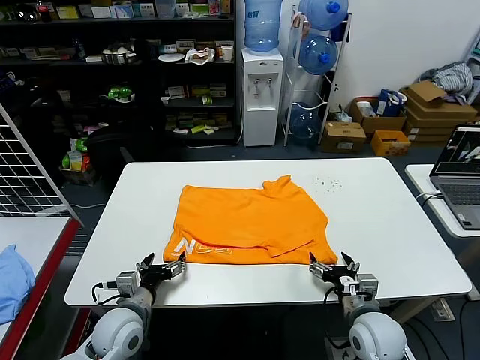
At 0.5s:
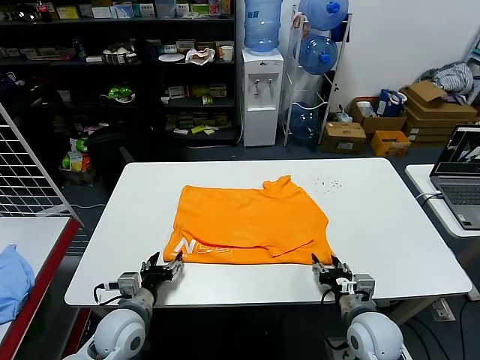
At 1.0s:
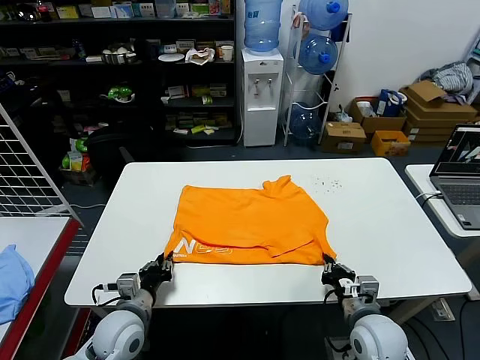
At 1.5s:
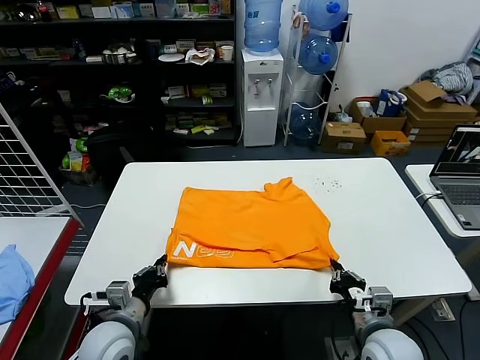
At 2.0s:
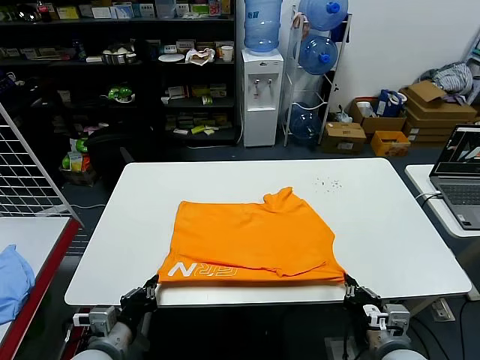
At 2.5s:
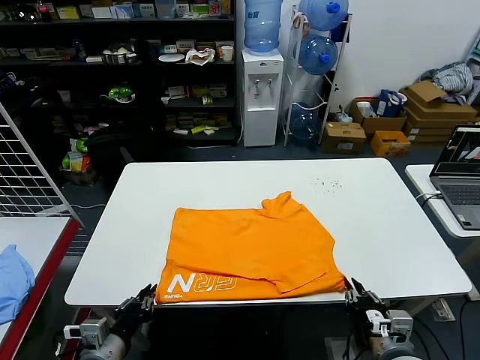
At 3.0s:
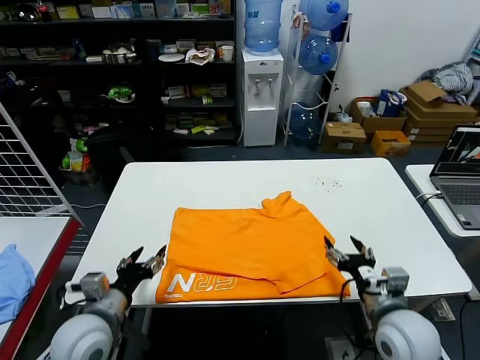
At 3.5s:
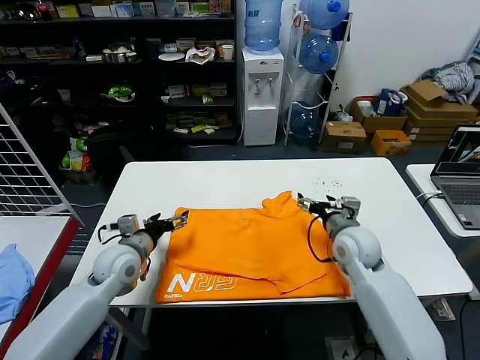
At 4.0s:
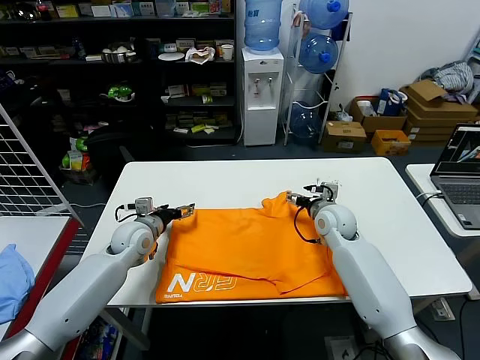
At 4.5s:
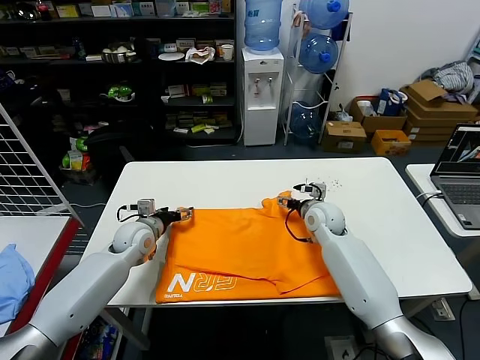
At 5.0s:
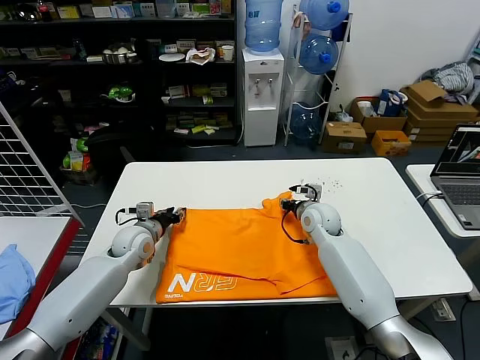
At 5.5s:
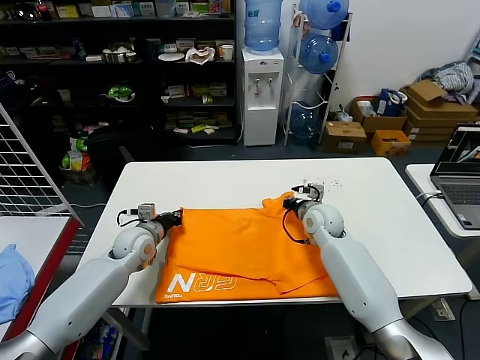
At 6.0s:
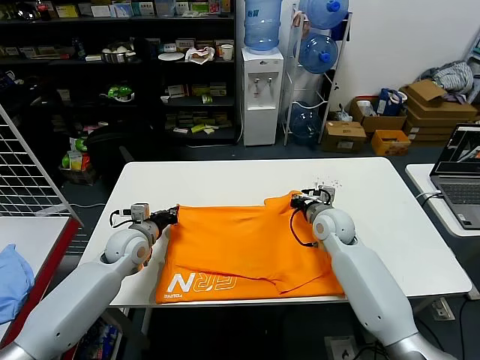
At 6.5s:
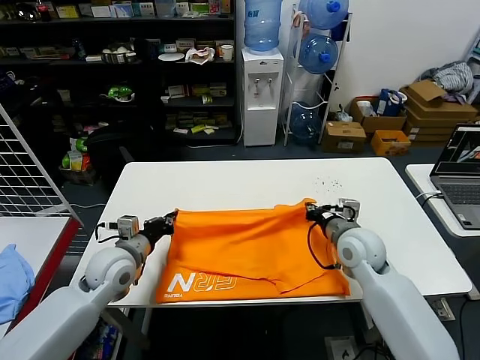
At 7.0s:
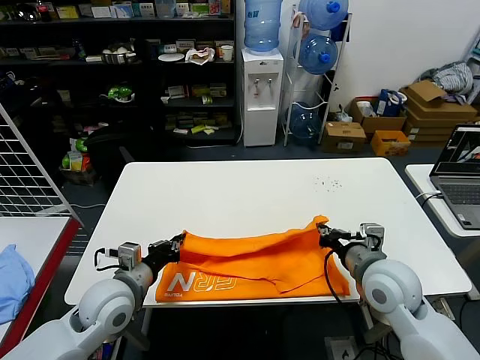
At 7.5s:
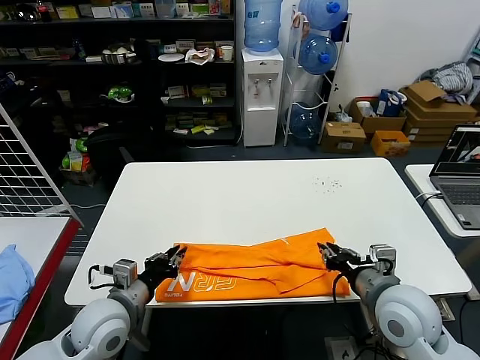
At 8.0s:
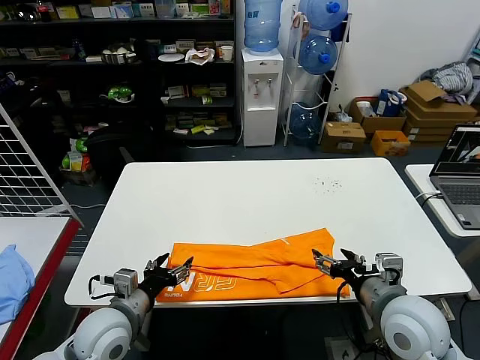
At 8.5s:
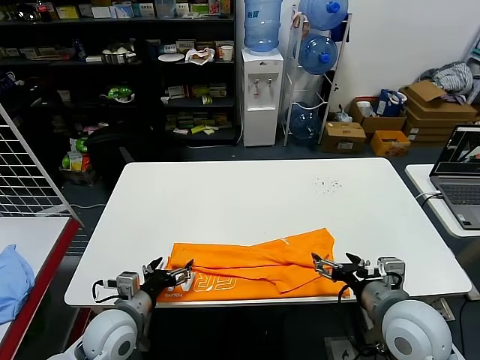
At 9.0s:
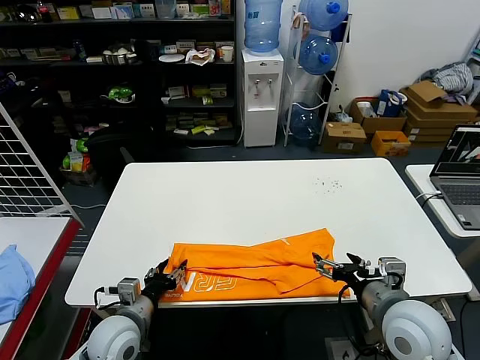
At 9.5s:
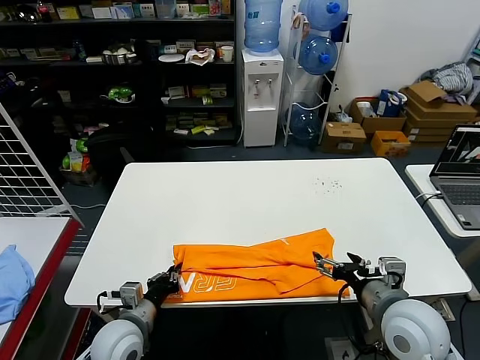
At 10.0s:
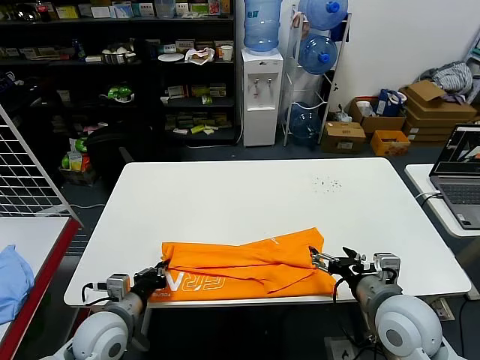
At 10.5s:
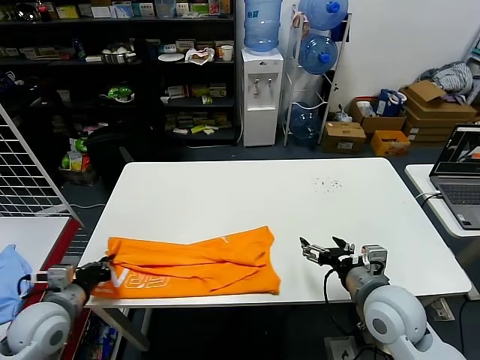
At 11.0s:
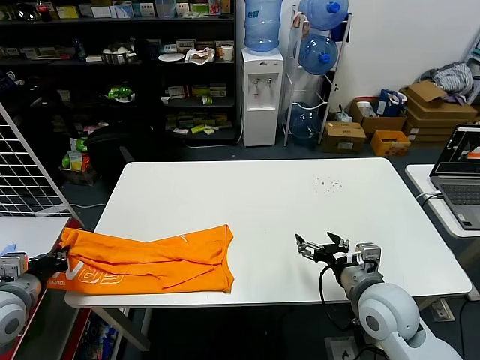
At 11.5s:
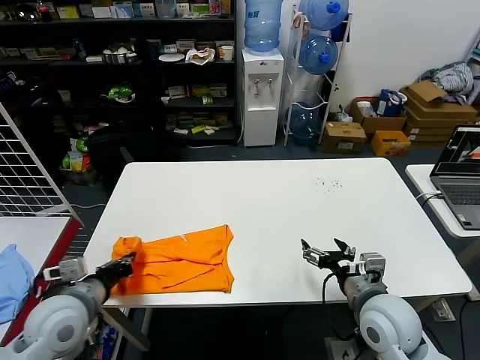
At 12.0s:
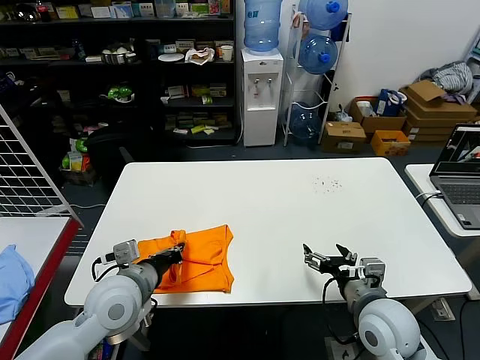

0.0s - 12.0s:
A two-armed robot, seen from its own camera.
Task of the whole recording: fold and organize the clothes.
Step, 0.0s - 2.5s: Drag the clothes downward with both gripper.
Step, 3.0s - 5.0s: use both grippers simultaneously to clamp the upper edge of the clothing fabric.
Step, 5.5s - 7.5s: use both grippers to drag the upper edge of the fabric backward and fold it over the lower edge.
Step, 8.0s - 9.5s: use the left gripper to clamp the left edge of the fabric.
0.0s - 2.0s: The grippers both shift backward by some 10 cm. The left gripper closes its fingers; the right gripper closes its fingers.
2.0s - 4.0s: Both grippers move forward, roughly 30 cm. The right gripper opens its fingers; the left gripper opens.
4.0s - 6.0s: The right gripper closes its fingers, while the left gripper closes up.
6.0s - 8.0s: The grippers both shift backward by roughly 20 cm. The right gripper opens, while the left gripper opens up.
8.0s - 10.0s: The left gripper closes.
10.0s - 12.0s: The left gripper travels upward by roughly 10 cm, and reaches approximately 20 cm to the left, then returns.

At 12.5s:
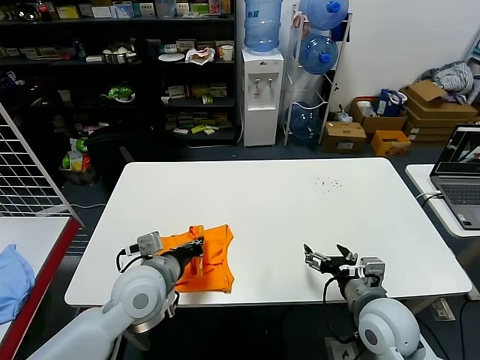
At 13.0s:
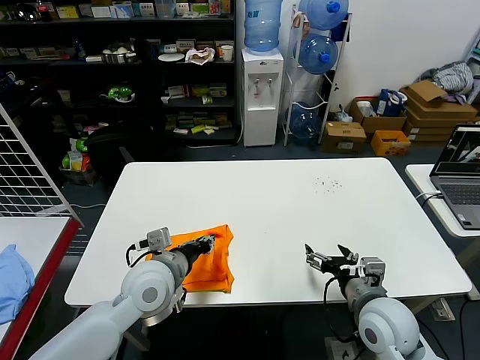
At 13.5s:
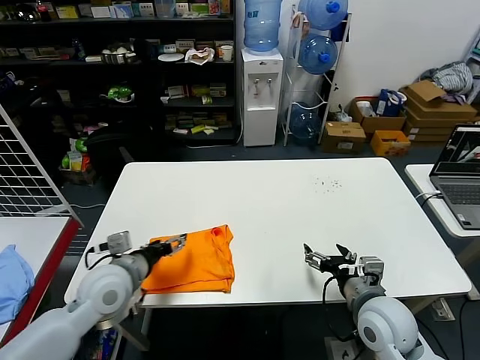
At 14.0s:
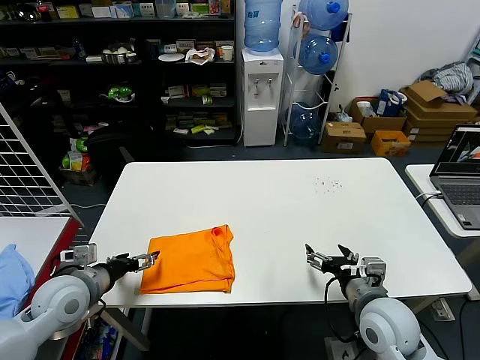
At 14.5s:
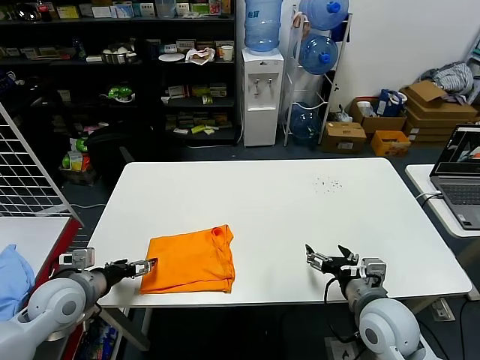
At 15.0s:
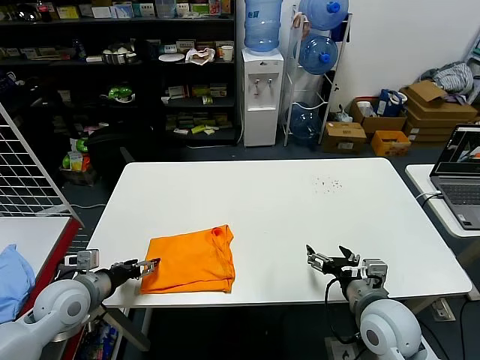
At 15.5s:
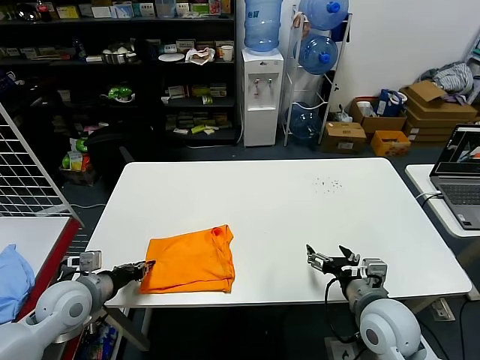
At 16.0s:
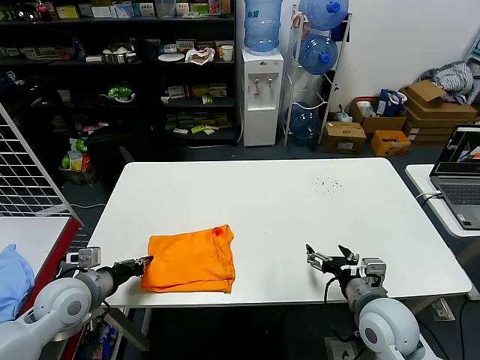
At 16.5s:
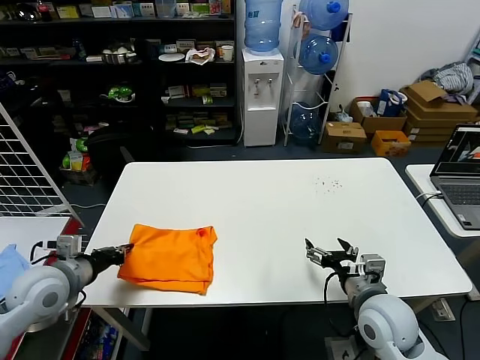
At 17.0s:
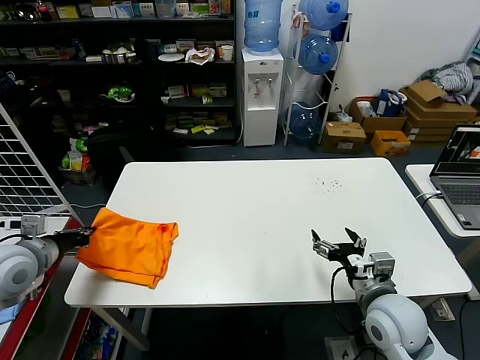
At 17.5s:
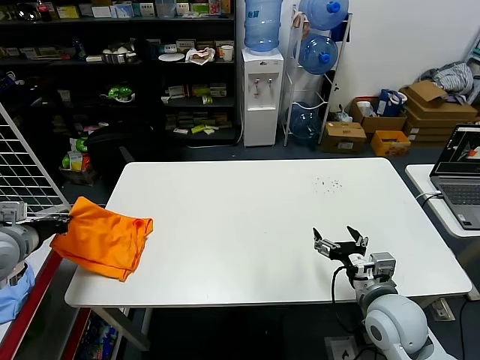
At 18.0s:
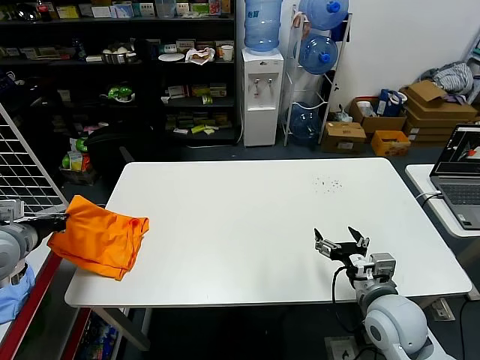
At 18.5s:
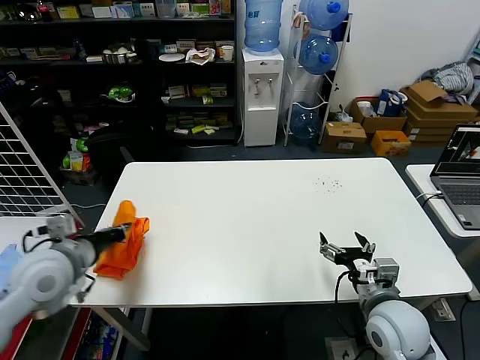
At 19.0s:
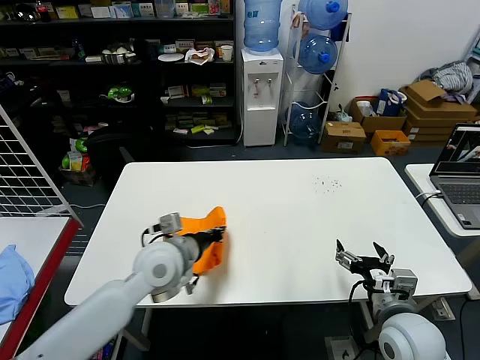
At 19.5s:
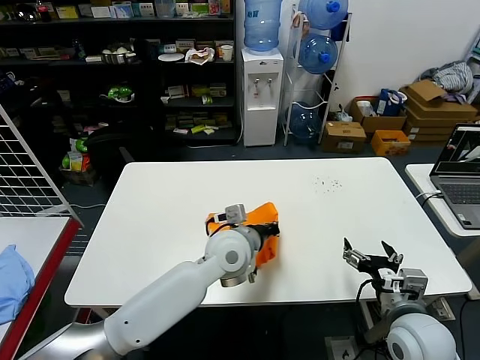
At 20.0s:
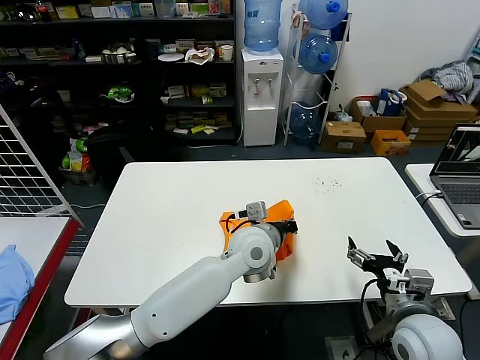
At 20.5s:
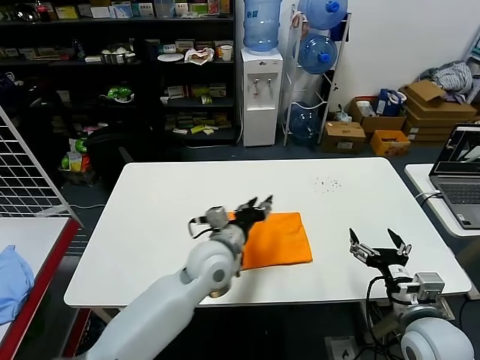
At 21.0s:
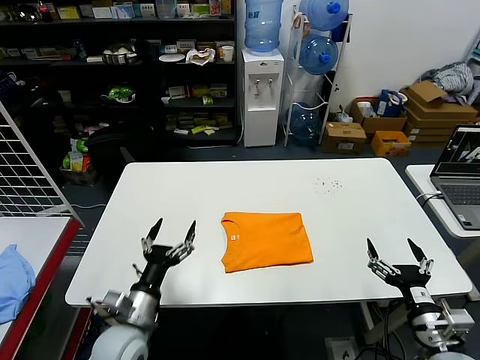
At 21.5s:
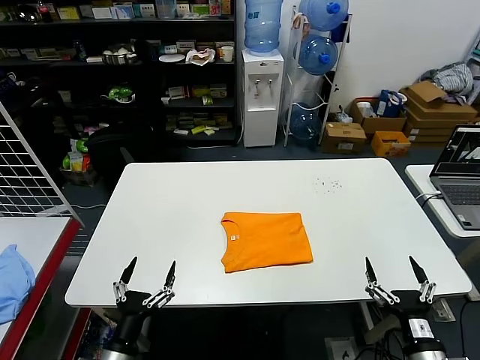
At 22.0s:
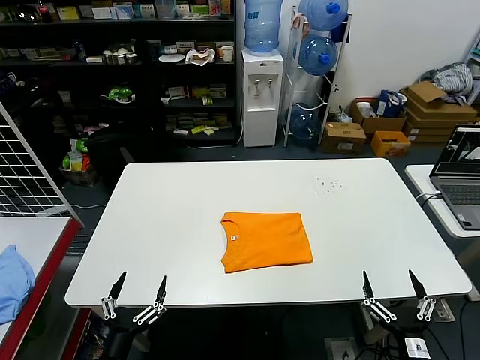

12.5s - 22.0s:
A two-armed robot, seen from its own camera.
Task of the whole recording: fold and organize the clothes.
Step, 13.5s - 20.0s: Flip the folded clothes over with left gripper.
12.5s - 14.5s: The left gripper moves to the left, about 15 cm, and opens up.
14.5s - 16.5s: The left gripper closes.
16.5s - 18.0s: The left gripper goes approximately 10 cm to the left and upward.
18.0s - 20.0s: The right gripper ends up some 5 cm from where it was. Meanwhile the left gripper is displaced to the right by roughly 50 cm.
20.0s - 22.0s: The right gripper goes some 15 cm backward and downward. The left gripper goes approximately 40 cm to the left, backward and downward, and opens.
